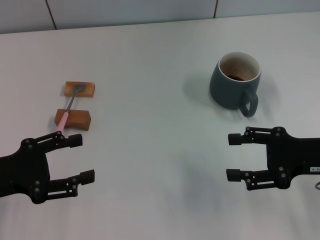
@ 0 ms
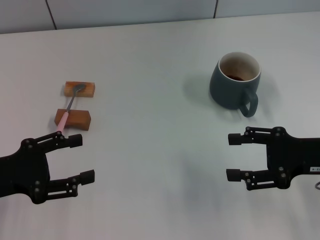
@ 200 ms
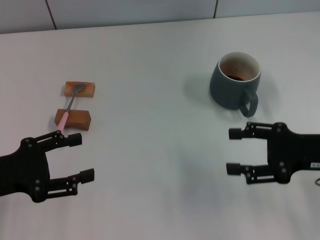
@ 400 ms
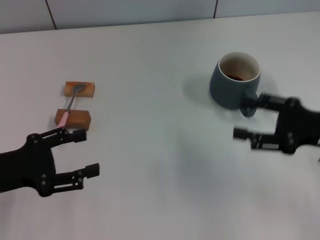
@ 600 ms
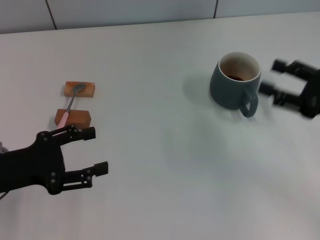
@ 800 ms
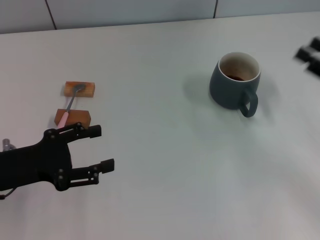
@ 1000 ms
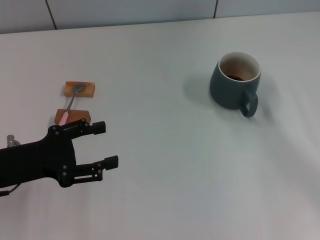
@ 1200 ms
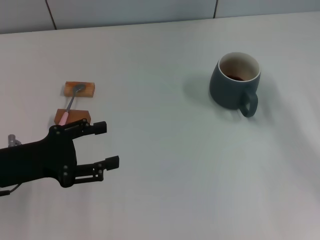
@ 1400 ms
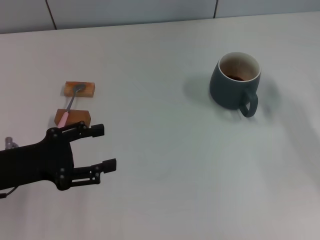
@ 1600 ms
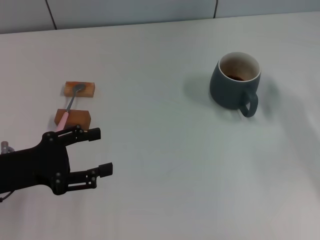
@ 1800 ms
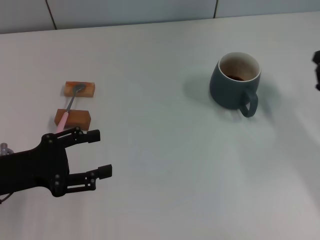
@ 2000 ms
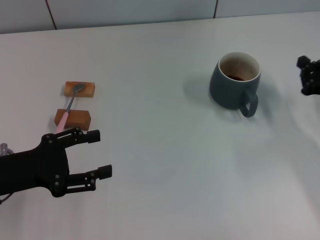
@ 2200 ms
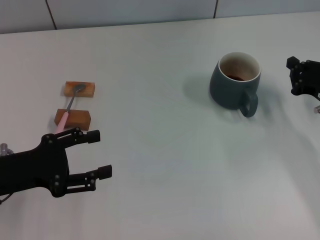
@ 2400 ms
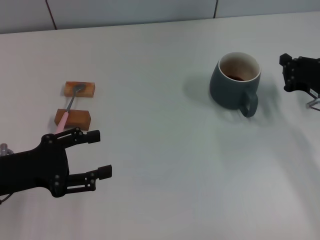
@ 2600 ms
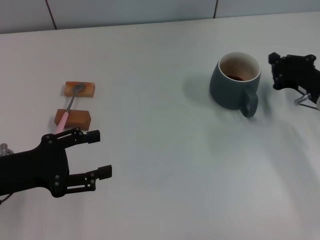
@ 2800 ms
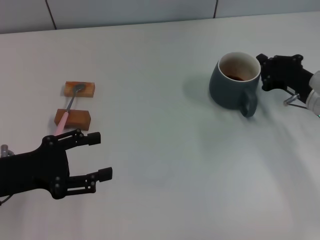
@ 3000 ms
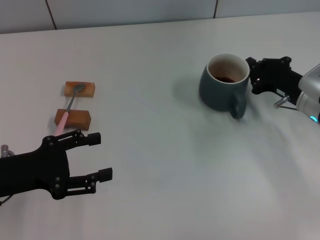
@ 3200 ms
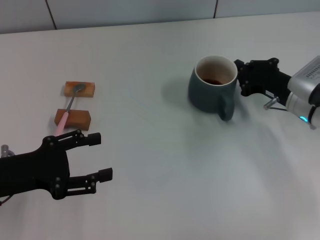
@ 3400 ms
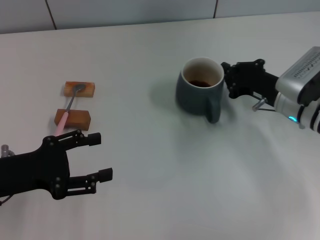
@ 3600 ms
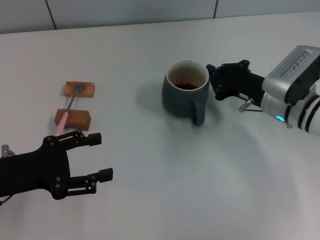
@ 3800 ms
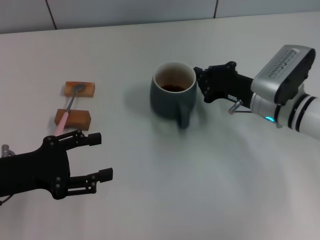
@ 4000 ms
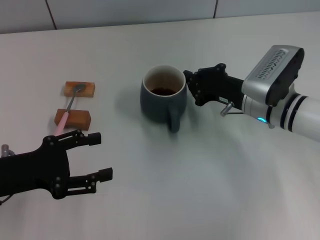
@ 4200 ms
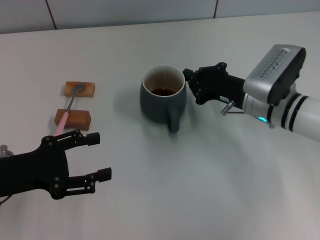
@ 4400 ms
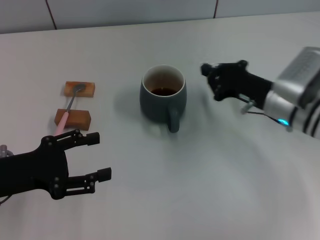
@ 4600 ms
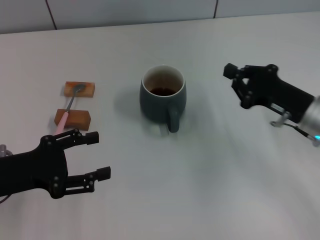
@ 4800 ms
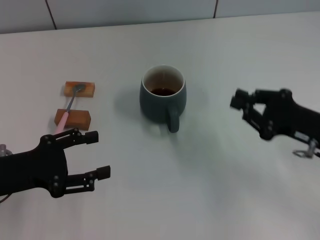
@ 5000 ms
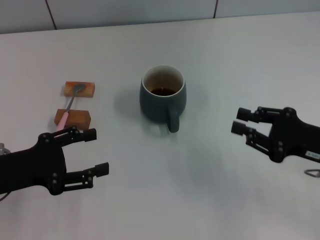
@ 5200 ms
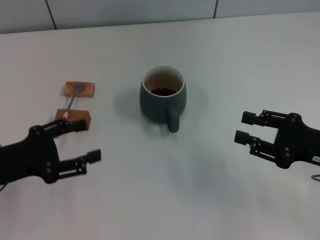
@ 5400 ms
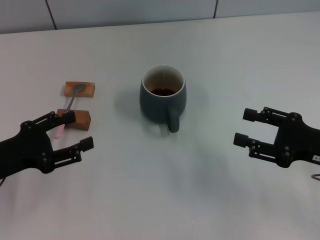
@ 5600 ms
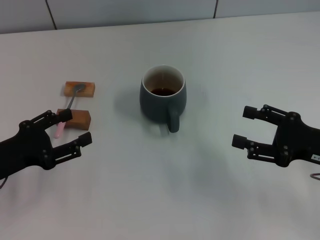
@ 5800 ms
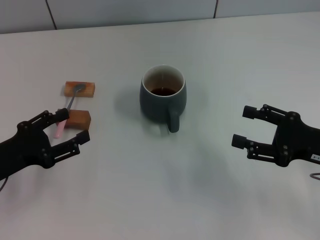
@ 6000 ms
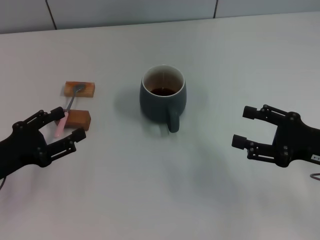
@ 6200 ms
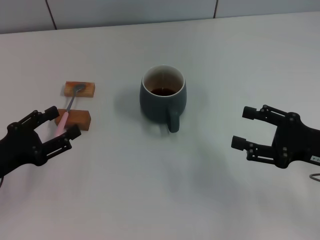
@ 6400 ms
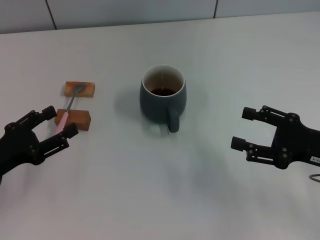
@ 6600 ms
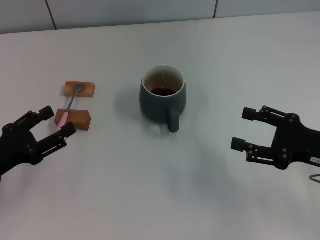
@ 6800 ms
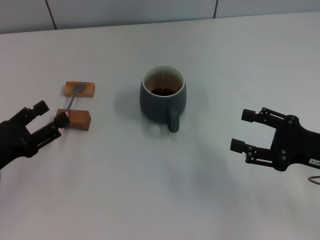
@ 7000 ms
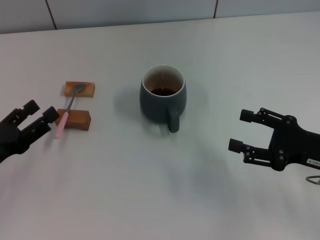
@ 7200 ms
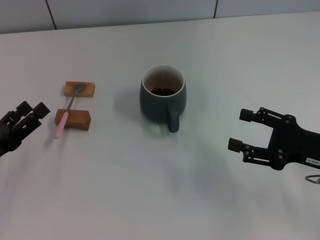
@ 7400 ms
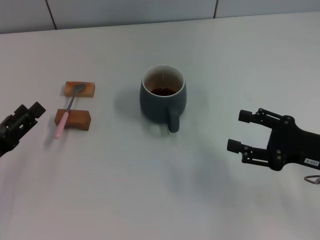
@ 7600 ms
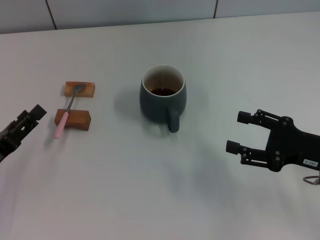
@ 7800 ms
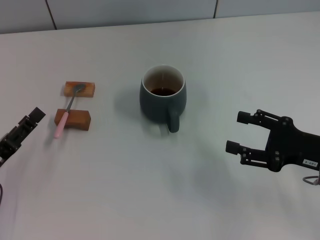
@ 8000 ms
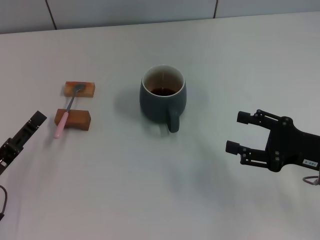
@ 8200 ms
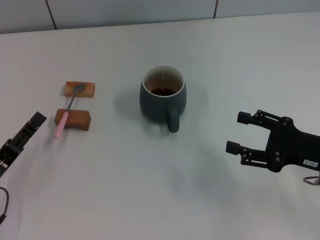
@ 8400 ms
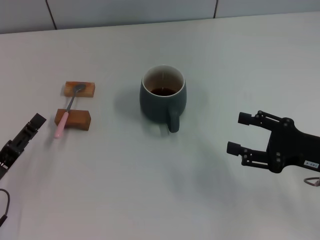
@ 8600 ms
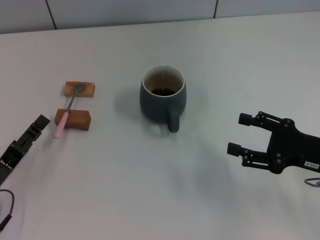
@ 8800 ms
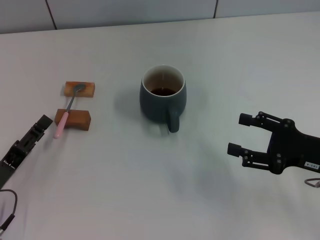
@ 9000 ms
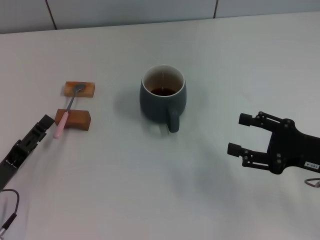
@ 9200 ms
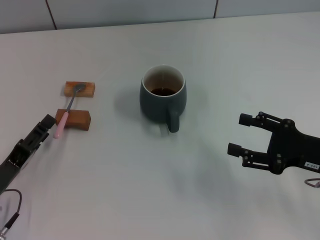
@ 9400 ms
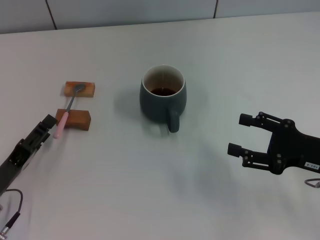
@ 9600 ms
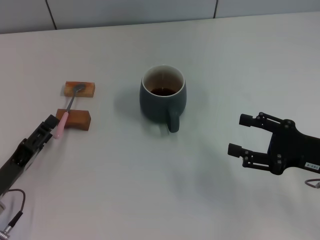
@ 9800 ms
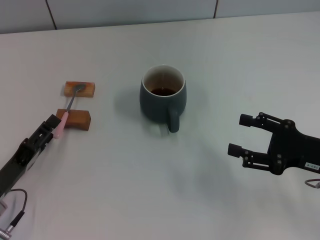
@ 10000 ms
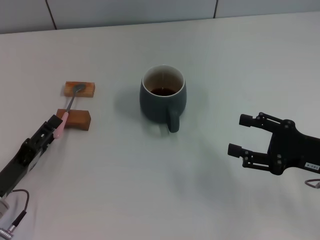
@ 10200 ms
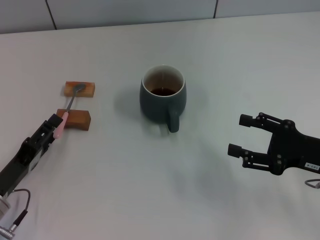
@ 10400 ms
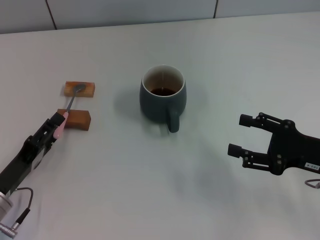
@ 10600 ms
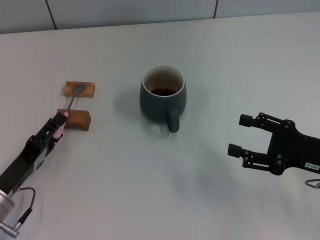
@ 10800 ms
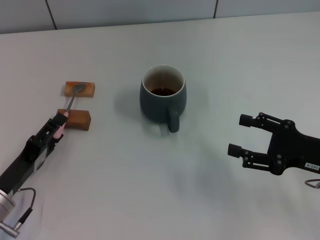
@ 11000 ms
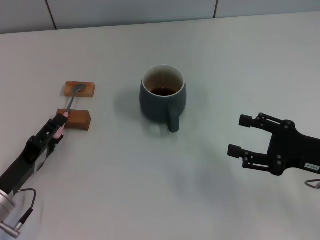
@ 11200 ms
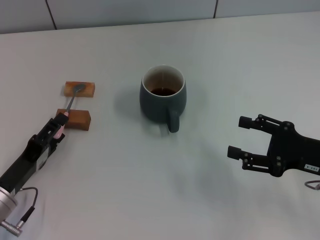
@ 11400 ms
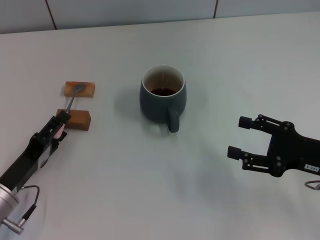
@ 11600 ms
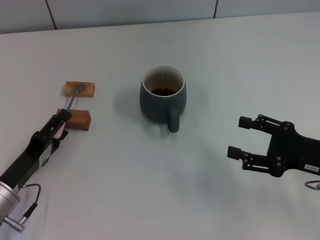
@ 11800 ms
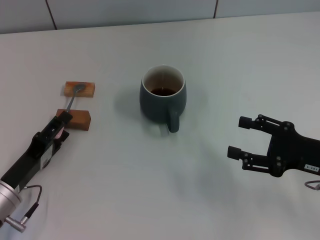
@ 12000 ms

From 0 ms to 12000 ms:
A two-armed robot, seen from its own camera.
Task of the whole recording: Move the grey cup to the center, lift the pink spoon, stir it three times in the cup, and put the spoon into the cup.
Step, from 0 ms to 4400 ms: Move the cup with coffee to the center of view with the right gripper.
From 0 ms to 1600 ms: The right gripper heads to the right, covering roughly 10 cm, and closes up.
From 1600 ms to 3000 ms: The right gripper goes approximately 10 cm to the left and forward.
From 3000 ms to 4400 ms: The right gripper shifts some 10 cm to the left.
From 4400 ms to 6000 ms: The right gripper moves backward and to the right, approximately 15 cm, and opens up.
From 9000 ms to 12000 ms: There are only small adjustments of the grippers.

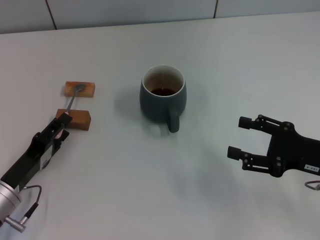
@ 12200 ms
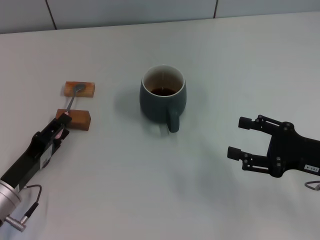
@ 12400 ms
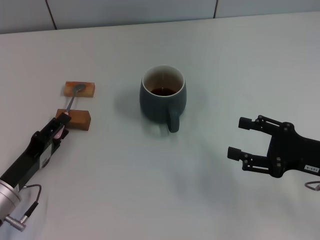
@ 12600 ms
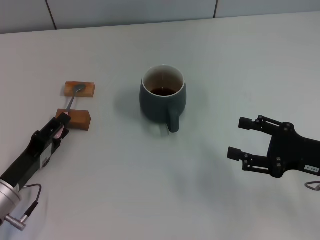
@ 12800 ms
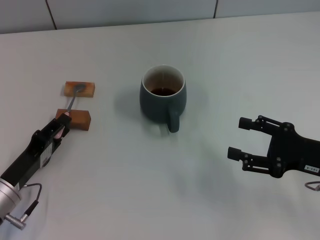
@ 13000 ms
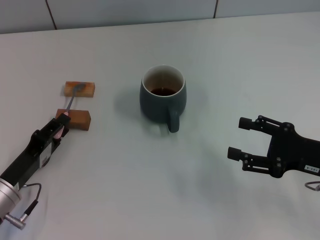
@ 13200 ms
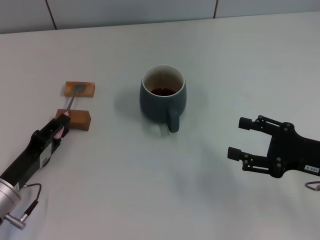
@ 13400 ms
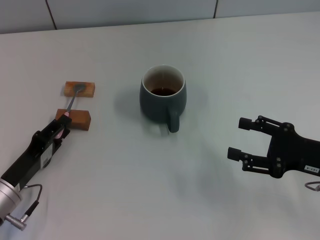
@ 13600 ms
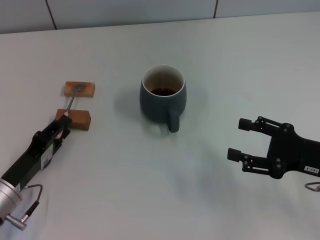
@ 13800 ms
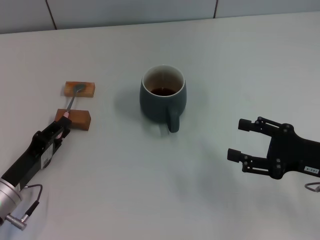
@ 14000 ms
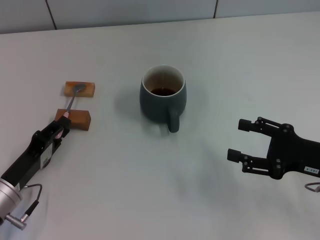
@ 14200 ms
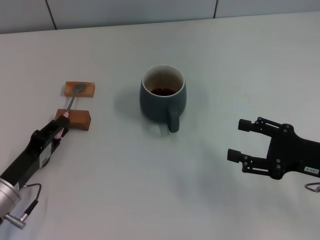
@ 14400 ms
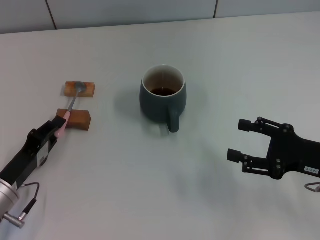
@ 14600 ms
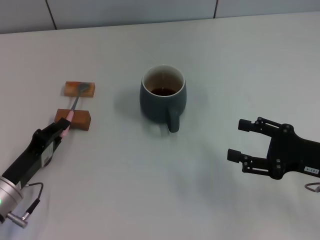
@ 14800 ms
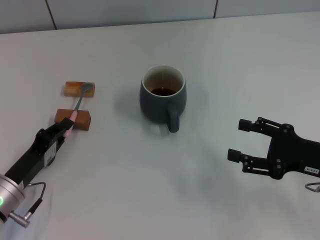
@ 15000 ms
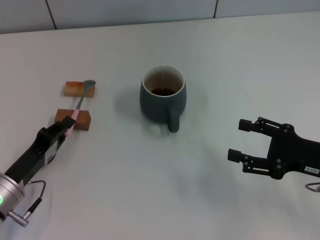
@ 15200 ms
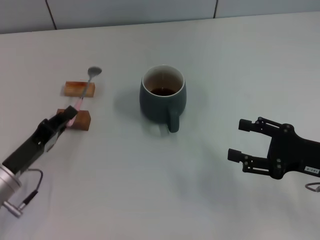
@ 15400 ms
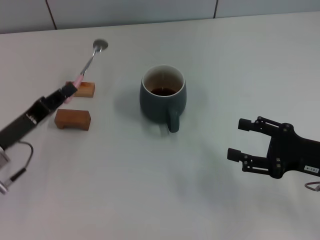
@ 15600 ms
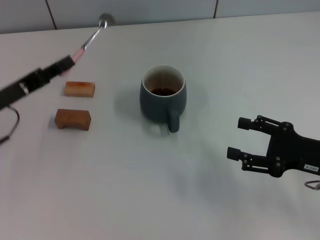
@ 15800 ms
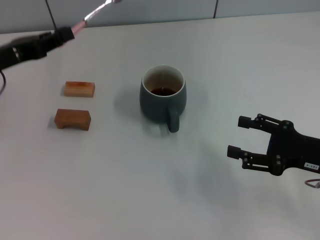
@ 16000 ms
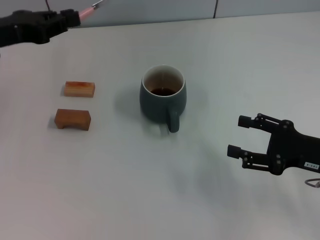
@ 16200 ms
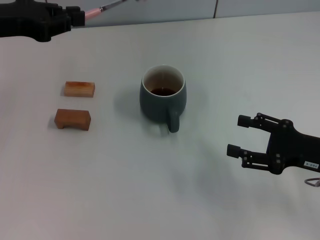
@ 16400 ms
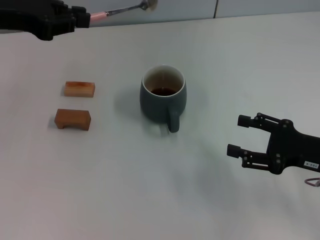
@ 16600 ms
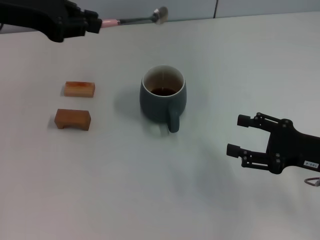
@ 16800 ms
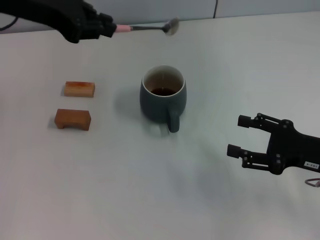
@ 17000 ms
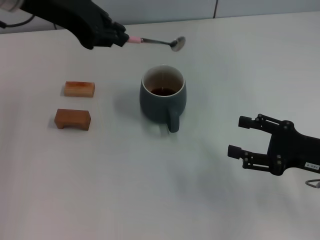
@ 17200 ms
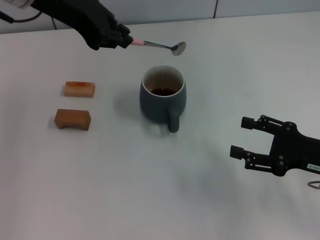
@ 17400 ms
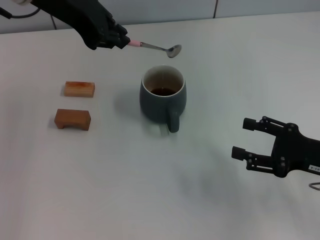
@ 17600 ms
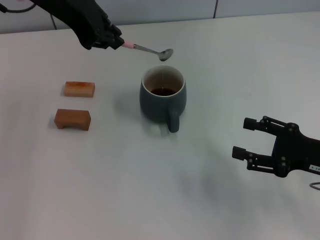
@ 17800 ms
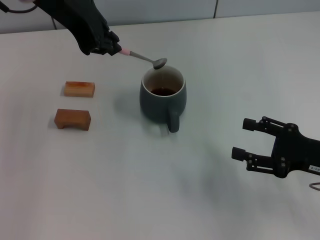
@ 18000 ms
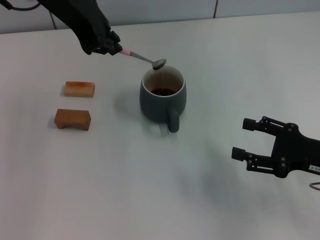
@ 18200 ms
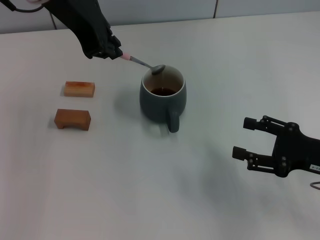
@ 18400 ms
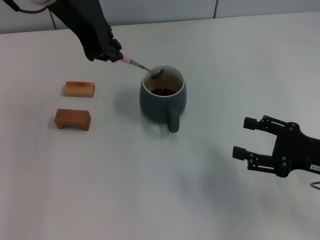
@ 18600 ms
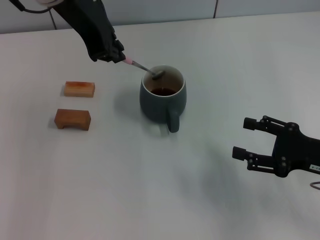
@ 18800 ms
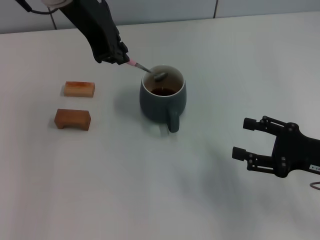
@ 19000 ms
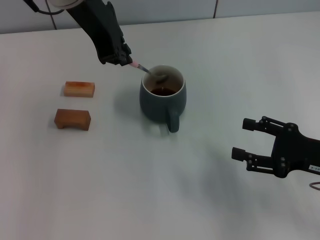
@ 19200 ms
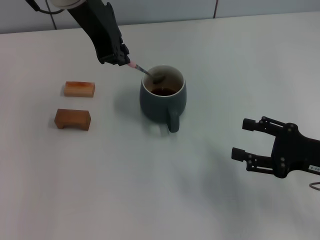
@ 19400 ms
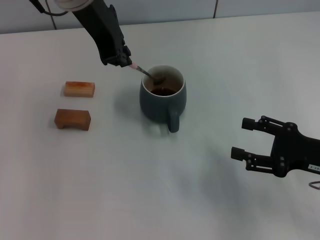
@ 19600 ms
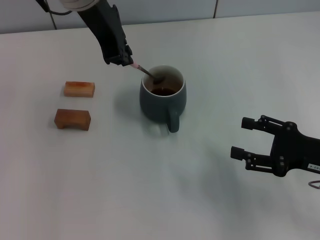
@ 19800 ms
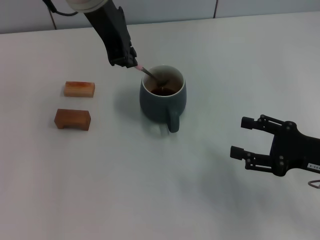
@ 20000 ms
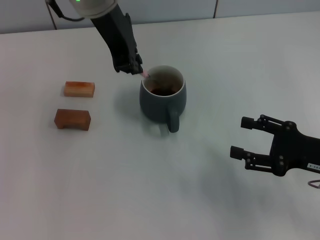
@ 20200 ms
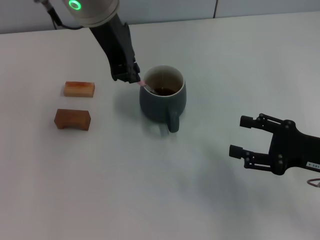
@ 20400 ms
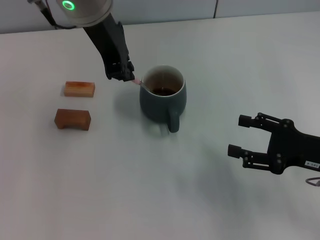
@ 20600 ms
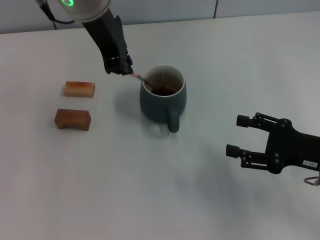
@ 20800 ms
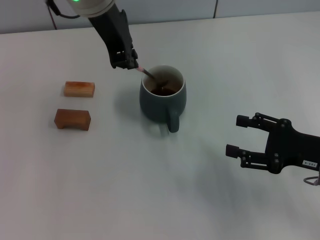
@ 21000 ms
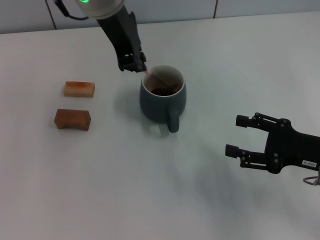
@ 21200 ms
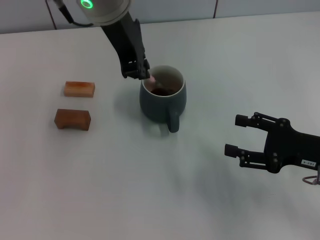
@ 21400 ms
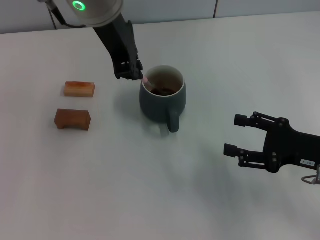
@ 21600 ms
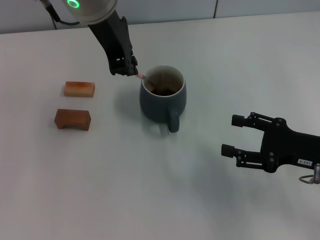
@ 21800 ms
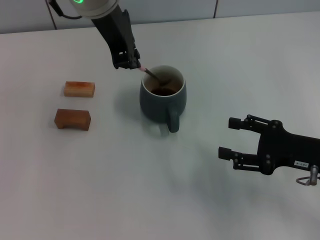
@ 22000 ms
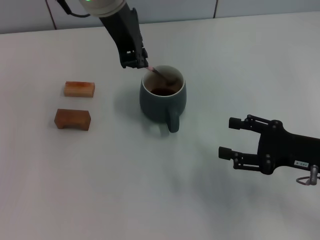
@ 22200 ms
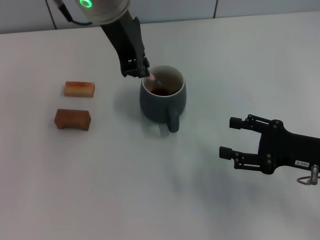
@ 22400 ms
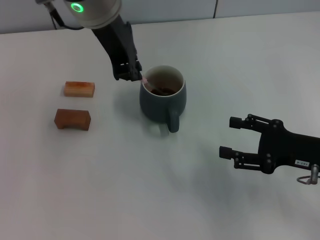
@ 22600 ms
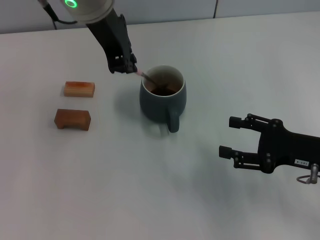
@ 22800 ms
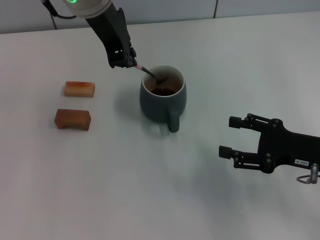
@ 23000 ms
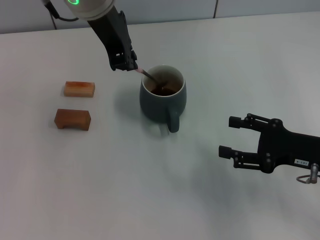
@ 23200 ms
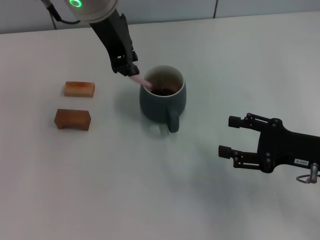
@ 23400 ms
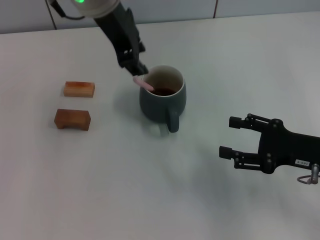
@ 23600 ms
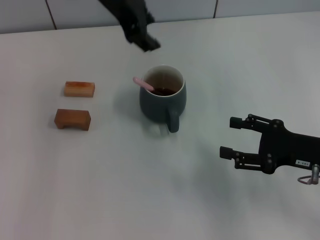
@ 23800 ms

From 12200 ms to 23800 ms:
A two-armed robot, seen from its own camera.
Task of the whole recording: Move the grey cup to the center, lift the pink spoon, stir it three times in the cup, and put the spoon into the cup.
Step, from 12200 ms to 15200 ms: Pick up the spoon with the left gripper.
Step, from 15400 ms to 23400 ms: Stir the coffee in the cup with the left gripper.
From 12200 ms to 13600 ms: The left gripper closes its fingers.
From 13600 ms to 15000 ms: The left gripper closes.
From 15000 ms to 16600 ms: The left gripper heads upward and forward, covering some 30 cm.
From 16600 ms to 18000 ms: The left gripper heads to the right and upward, covering approximately 15 cm.
From 18000 ms to 19400 ms: The grippers move only a little.
From 19400 ms to 22400 ms: There are only small adjustments of the grippers.
From 22400 ms to 23800 ms: The left gripper opens up.
